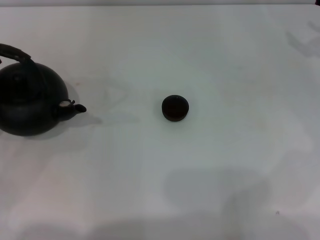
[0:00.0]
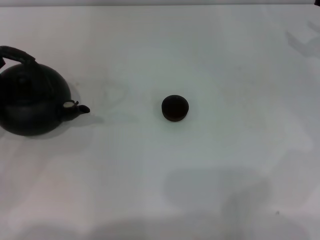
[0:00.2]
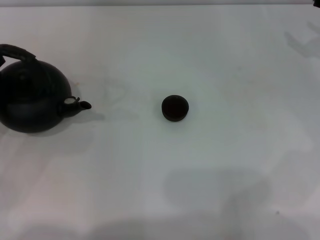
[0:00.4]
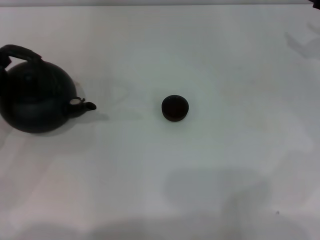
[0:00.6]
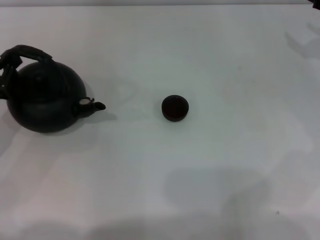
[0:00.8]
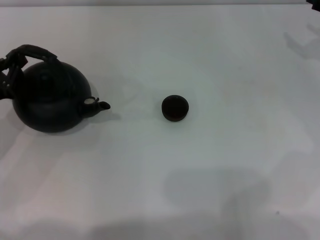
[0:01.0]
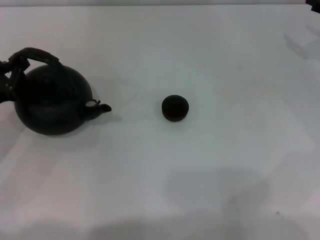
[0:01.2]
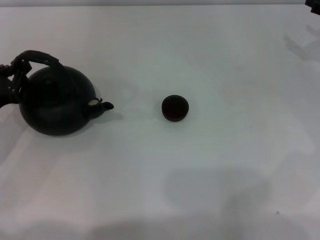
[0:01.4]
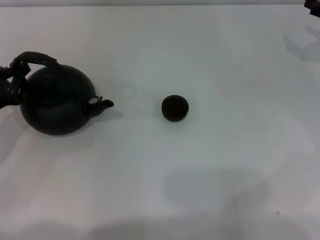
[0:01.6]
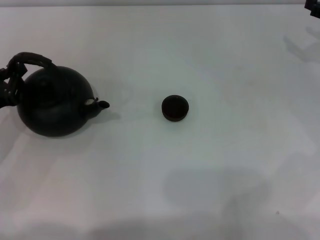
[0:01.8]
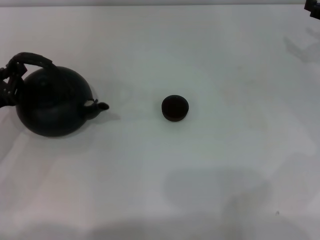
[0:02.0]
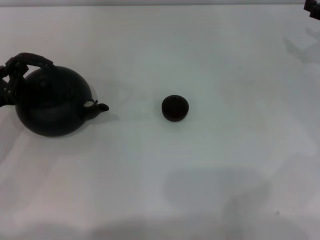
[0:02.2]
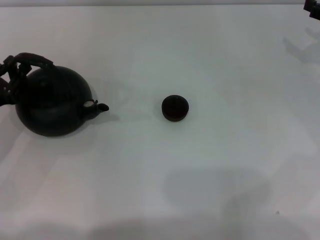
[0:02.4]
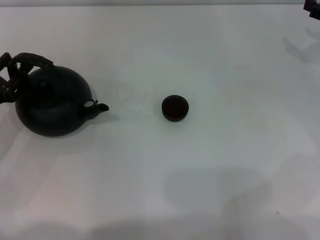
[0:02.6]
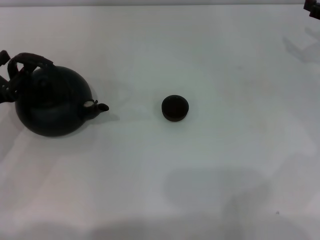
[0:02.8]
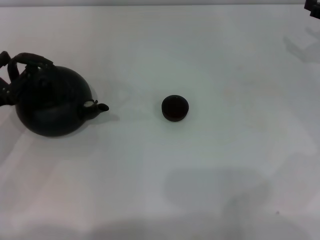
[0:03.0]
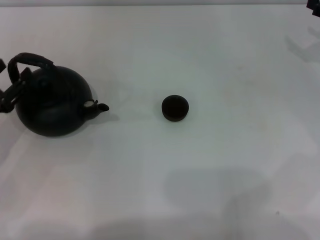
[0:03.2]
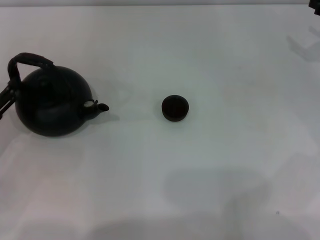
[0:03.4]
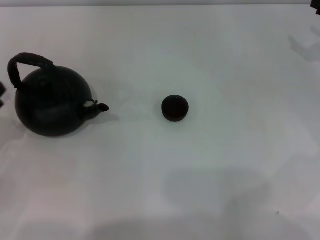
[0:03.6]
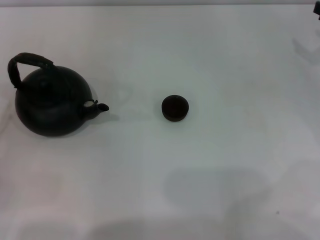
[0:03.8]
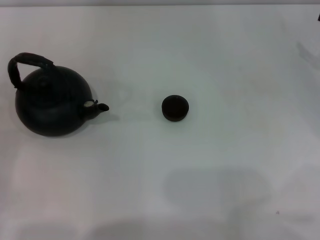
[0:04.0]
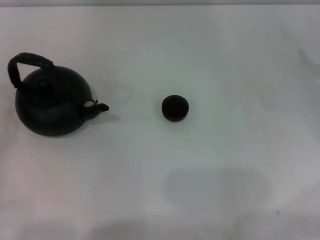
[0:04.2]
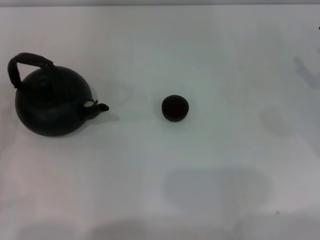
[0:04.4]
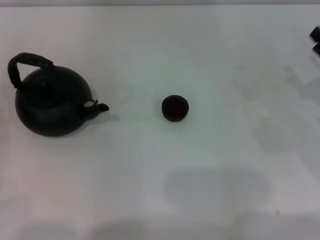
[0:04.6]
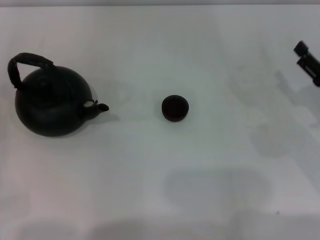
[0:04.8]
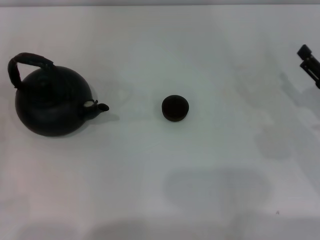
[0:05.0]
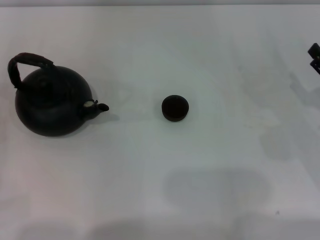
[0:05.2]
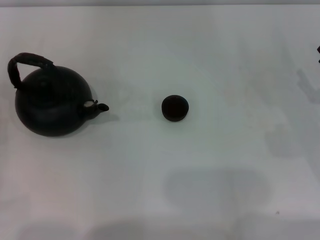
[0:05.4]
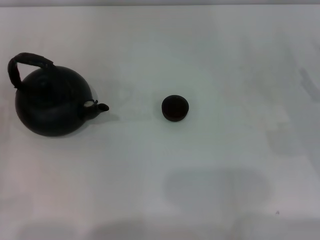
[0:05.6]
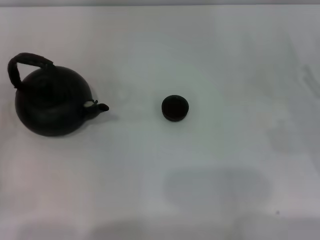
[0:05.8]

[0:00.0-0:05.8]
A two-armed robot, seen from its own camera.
Task of the whole recording: Grasp the handle of the teapot with one hand and pour tea into the teacup.
Step, 0:00.0 to 0:03.2: Put down the teapot with the left gripper.
0:00.0 to 0:01.4: The left gripper shifts by some 5 cm.
0:01.4 to 0:02.8: The left gripper opens up.
0:02.8 to 0:04.4: The left gripper heads backward and to the left, covering about 10 cm.

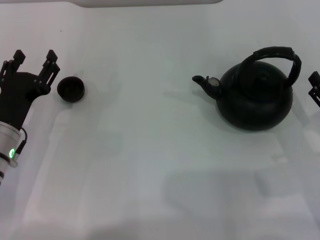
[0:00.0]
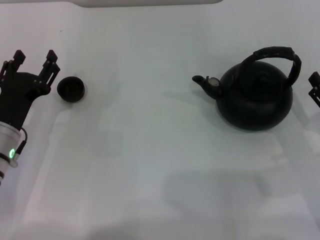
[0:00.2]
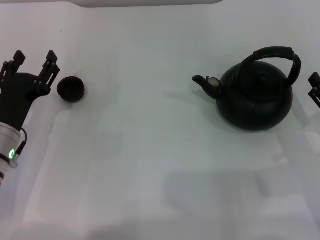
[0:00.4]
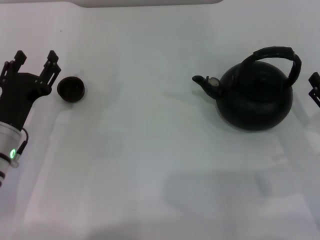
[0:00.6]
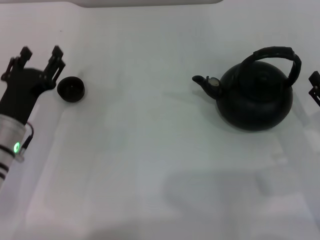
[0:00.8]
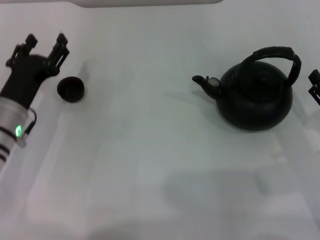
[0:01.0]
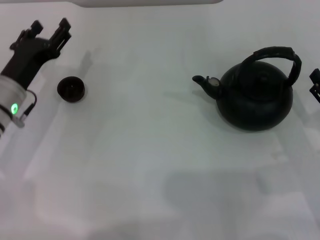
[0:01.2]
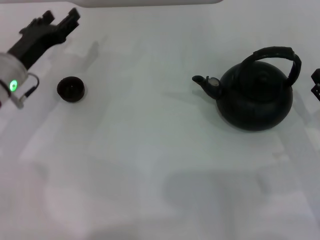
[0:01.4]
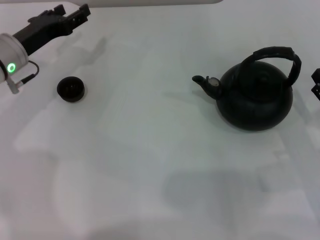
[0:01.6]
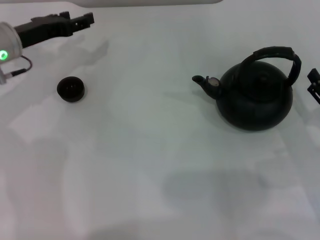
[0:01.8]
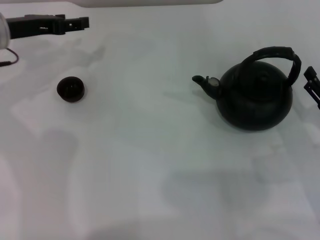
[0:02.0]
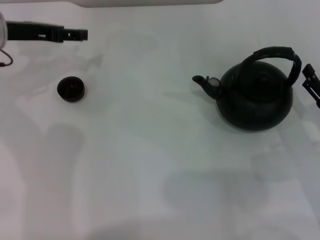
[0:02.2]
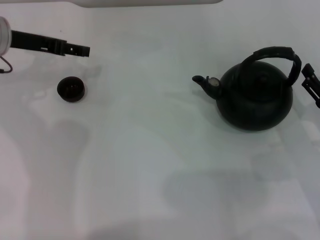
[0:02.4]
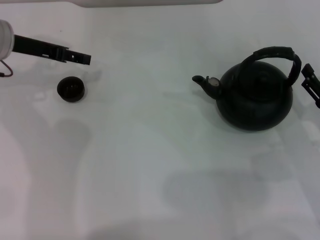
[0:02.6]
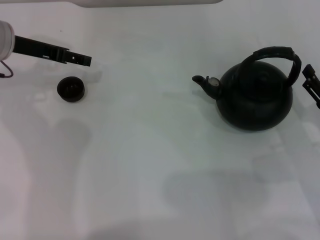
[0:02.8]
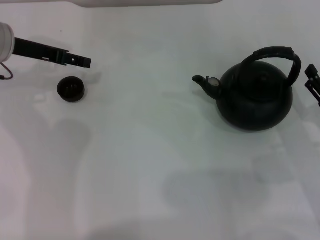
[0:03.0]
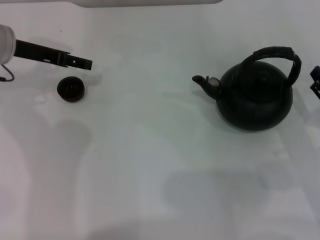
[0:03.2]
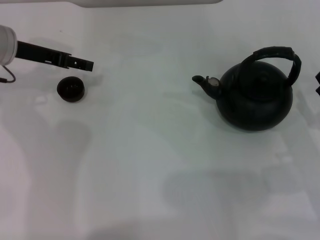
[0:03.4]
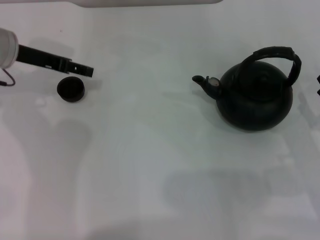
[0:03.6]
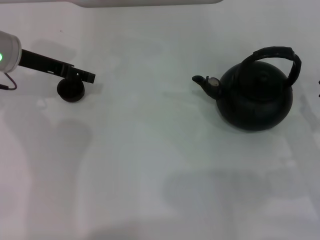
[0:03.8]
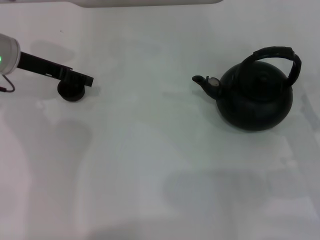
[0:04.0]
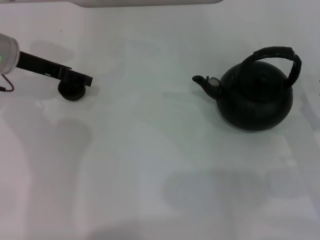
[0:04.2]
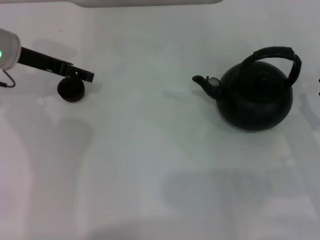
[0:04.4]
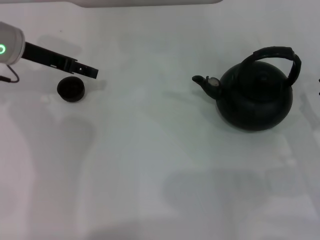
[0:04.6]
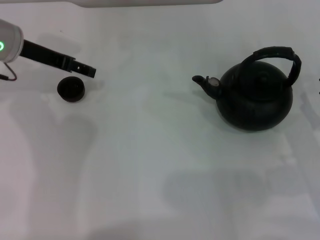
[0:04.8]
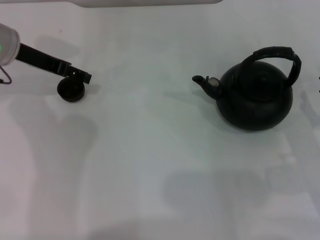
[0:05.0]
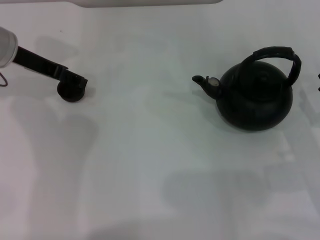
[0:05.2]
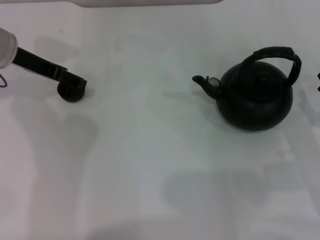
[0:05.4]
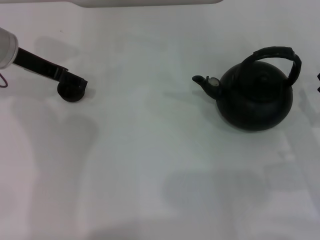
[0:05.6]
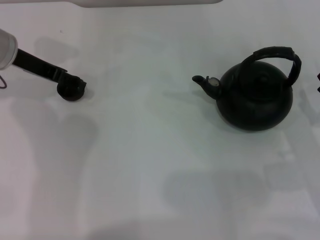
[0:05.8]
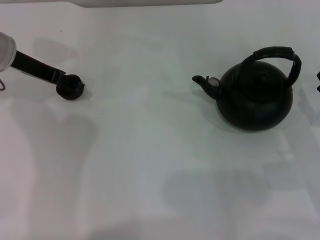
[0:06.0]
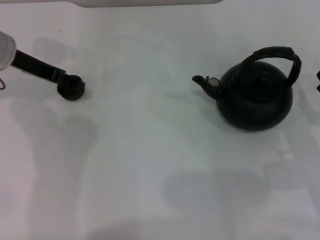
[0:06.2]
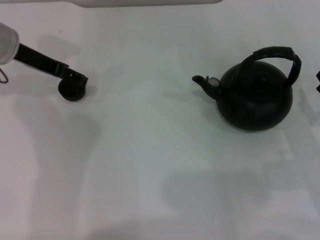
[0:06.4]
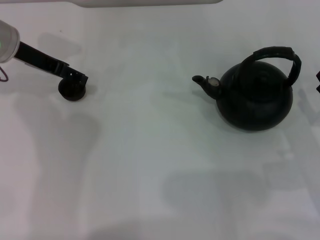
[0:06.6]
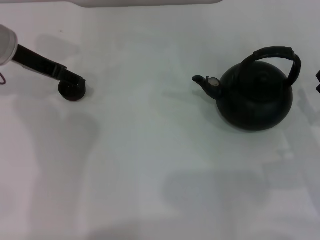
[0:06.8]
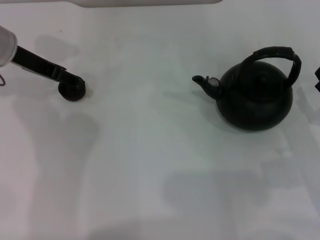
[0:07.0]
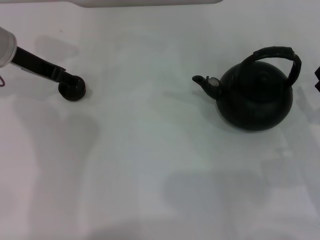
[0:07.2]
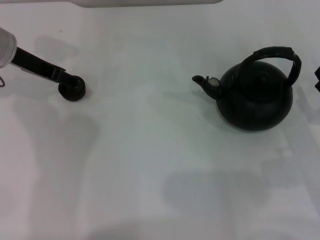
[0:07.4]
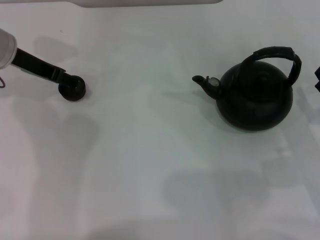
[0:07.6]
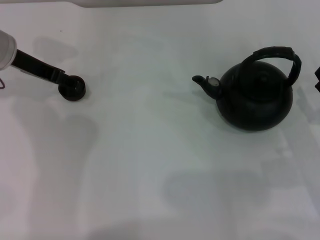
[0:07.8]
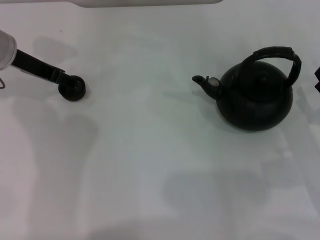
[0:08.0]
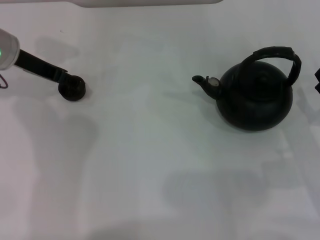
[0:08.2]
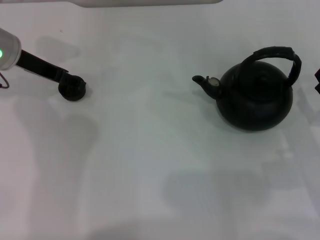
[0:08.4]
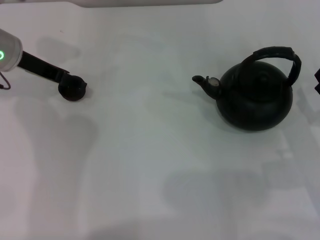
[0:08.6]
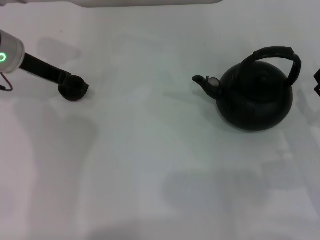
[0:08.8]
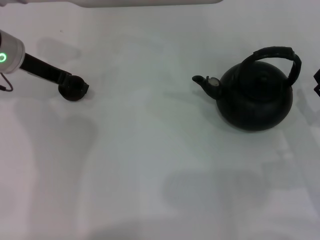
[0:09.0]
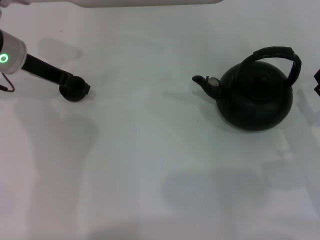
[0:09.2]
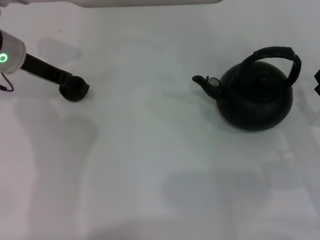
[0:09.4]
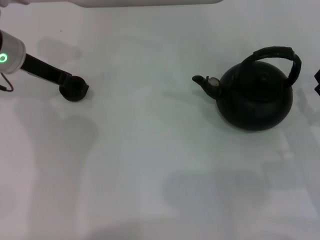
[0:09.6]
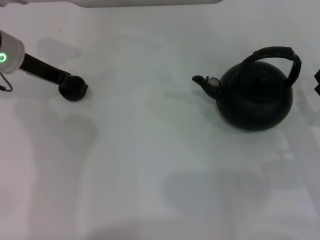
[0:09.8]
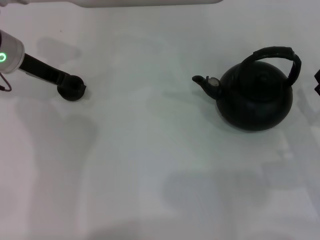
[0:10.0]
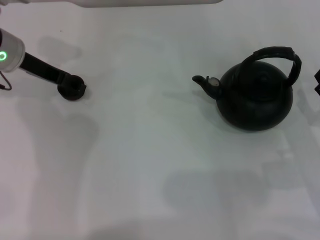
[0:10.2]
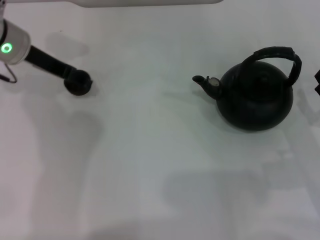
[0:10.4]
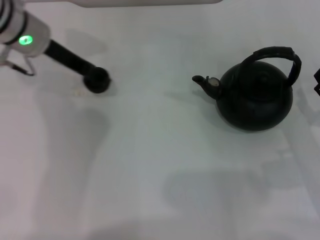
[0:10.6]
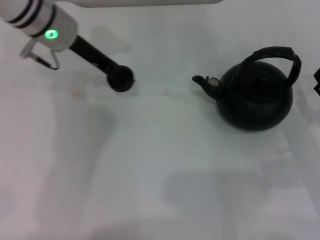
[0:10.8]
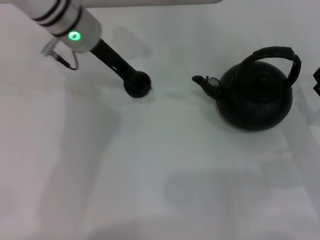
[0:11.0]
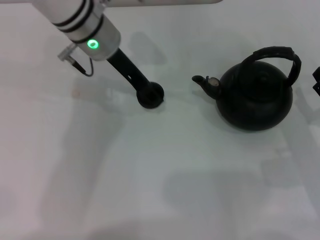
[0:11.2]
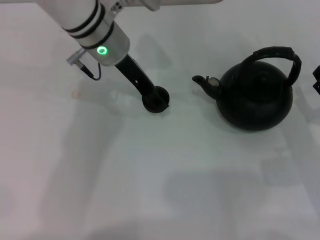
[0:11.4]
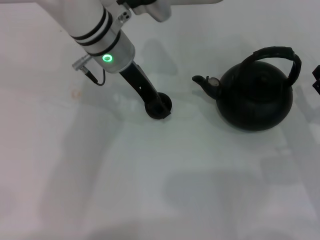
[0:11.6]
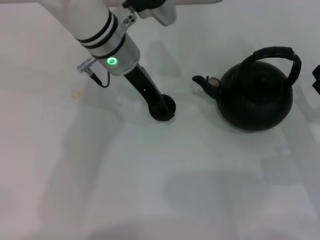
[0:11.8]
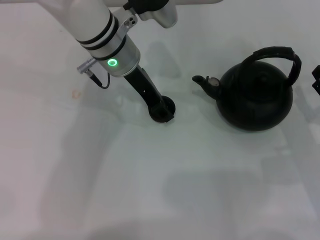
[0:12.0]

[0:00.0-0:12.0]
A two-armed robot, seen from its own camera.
Task of the whole recording: Grasp the handle of the teapot with one hand and pour tea into the teacup.
Step, 0:00.0 to 0:11.0: Pick up the teacup with the left gripper.
0:00.0 to 0:01.6: The left gripper shifts about 15 cm forward and upward.
0:01.6 to 0:03.0: The left gripper travels upward by some 5 cm.
0:03.0 to 0:07.6: The grippers stay close to where they were, moving slightly.
0:07.6 to 0:09.0: The two grippers keep their place.
0:09.0 to 0:10.4: The grippers stay close to where they were, moving slightly.
0:10.4 to 0:12.0: The left gripper moves to the right, about 15 cm.

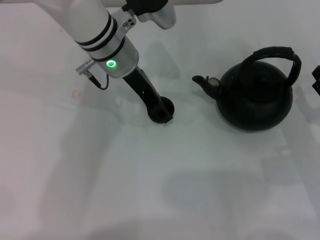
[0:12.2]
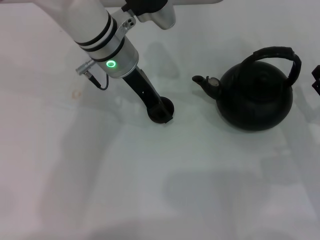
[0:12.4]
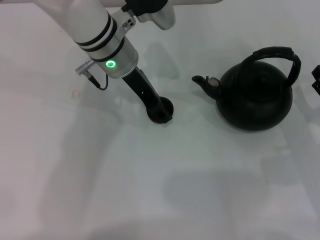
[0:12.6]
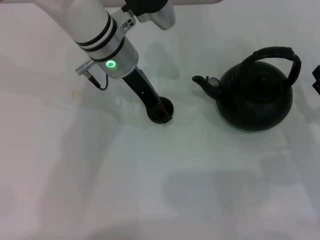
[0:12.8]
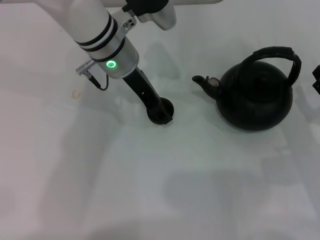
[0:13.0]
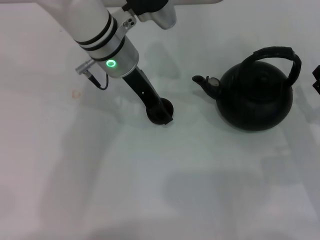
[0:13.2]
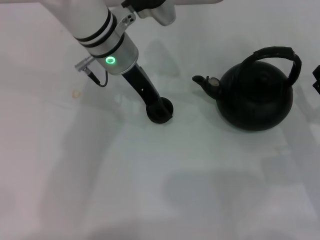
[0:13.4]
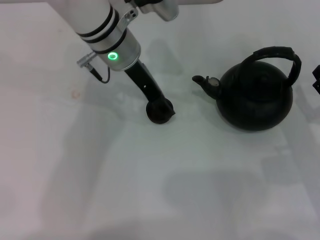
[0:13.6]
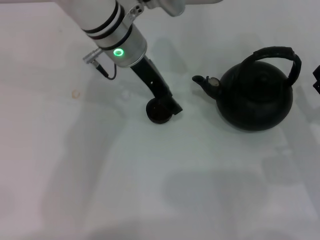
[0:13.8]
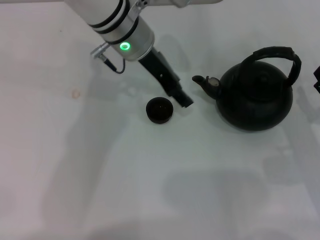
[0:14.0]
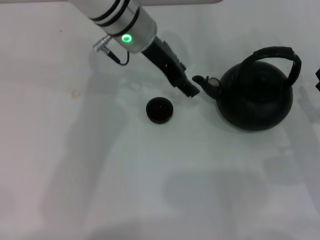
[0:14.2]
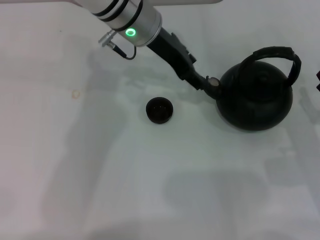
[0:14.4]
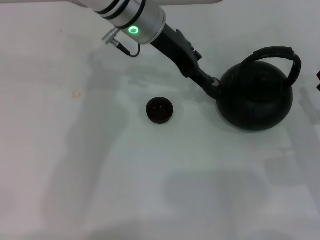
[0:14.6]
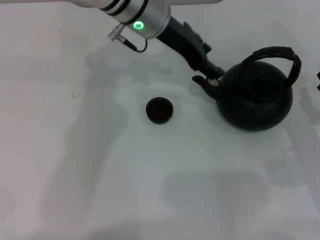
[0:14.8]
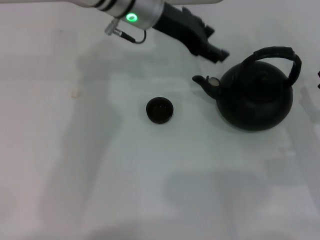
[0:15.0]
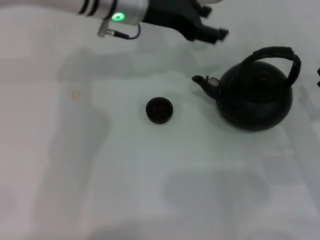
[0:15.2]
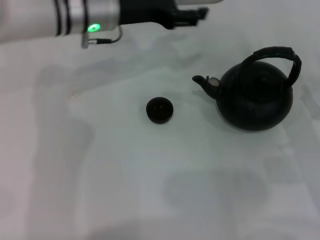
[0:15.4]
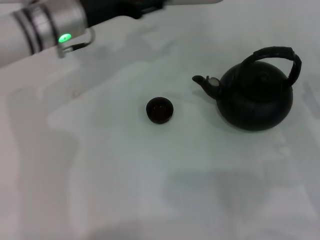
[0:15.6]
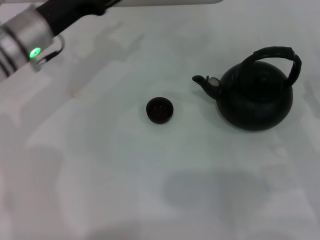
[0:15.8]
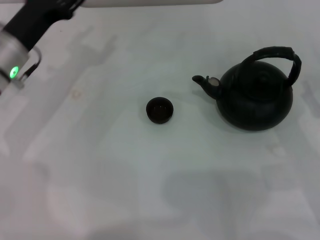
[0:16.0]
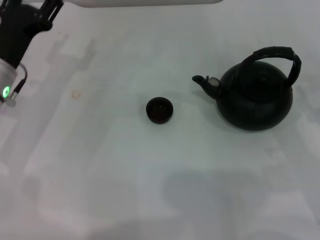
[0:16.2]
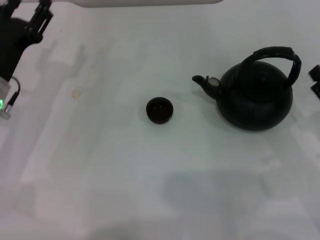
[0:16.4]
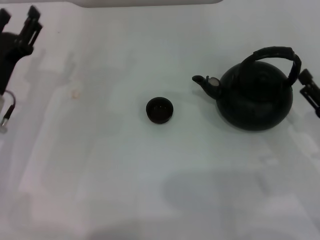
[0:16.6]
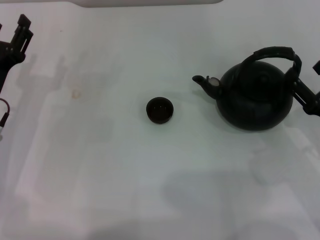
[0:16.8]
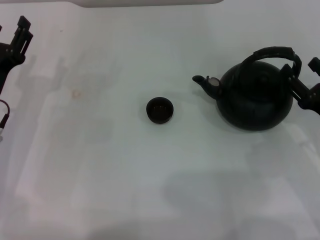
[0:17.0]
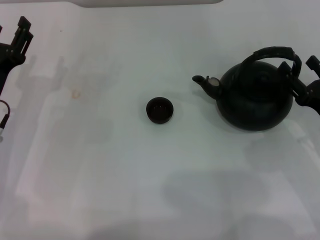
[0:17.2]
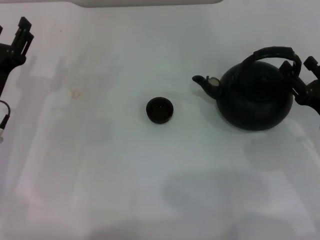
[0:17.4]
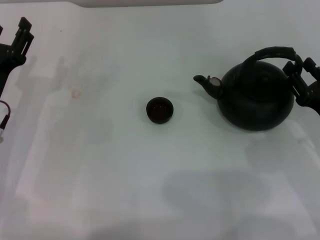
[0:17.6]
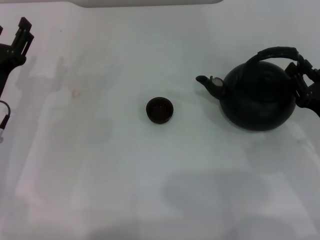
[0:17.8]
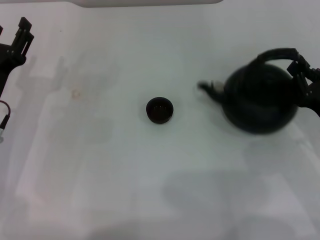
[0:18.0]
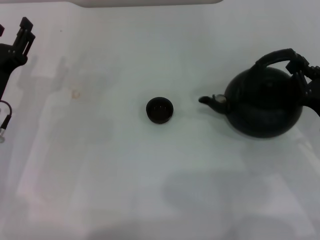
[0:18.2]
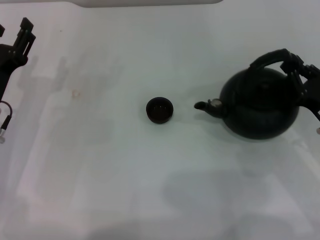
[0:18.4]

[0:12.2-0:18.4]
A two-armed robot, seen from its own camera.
Task of the whole recording: Grasp the handle of the teapot with one hand and pour tea into the teacup.
Step, 0:12.2 to 0:14.0: Place the teacup in the center of view with the left gripper.
0:12.2 to 0:13.8: The grippers move only a little.
0:13.8 to 0:15.4: The left gripper goes approximately 5 cm to the left.
0:15.4 to 0:16.8: The left gripper shifts approximately 25 cm to the left, backward and downward.
0:16.8 to 0:18.4: The right gripper closes up.
